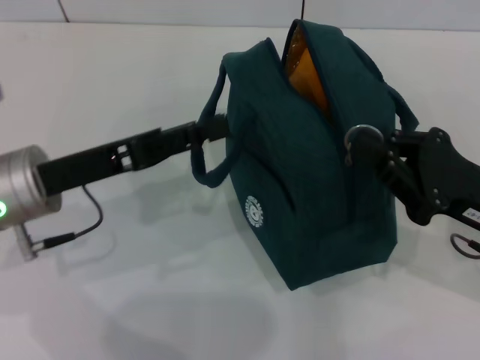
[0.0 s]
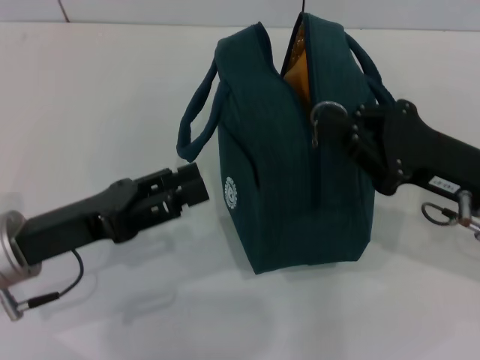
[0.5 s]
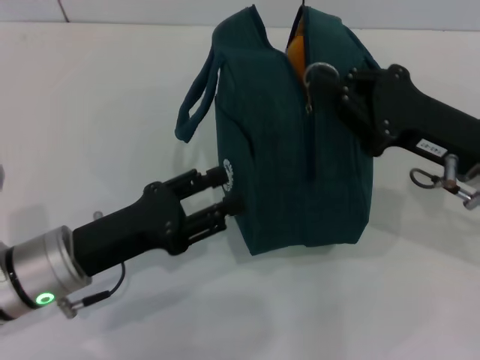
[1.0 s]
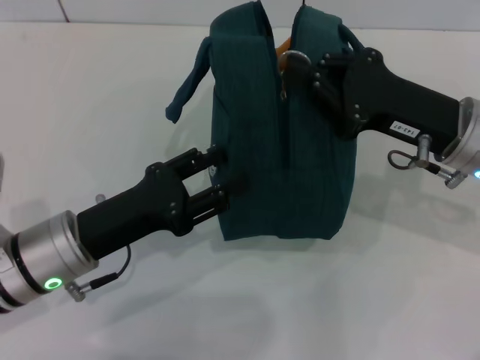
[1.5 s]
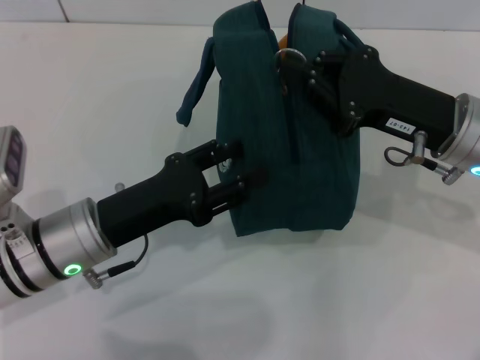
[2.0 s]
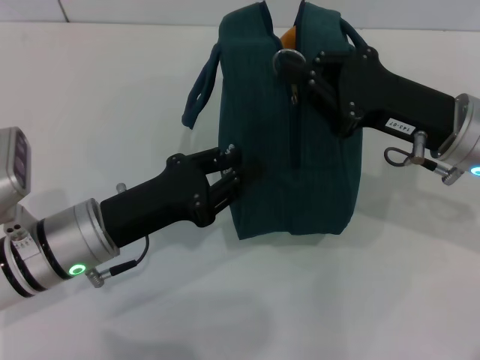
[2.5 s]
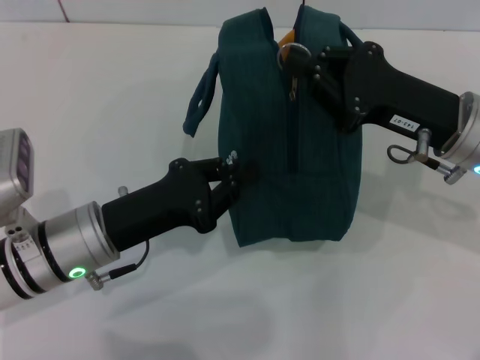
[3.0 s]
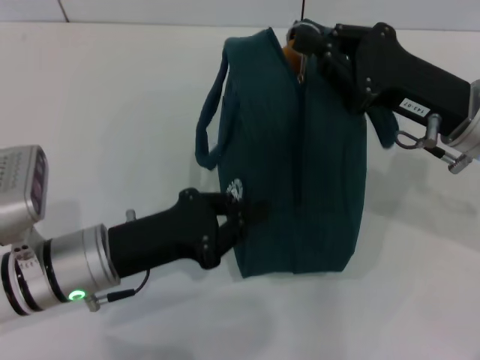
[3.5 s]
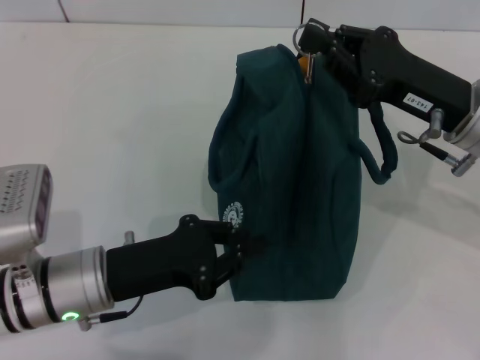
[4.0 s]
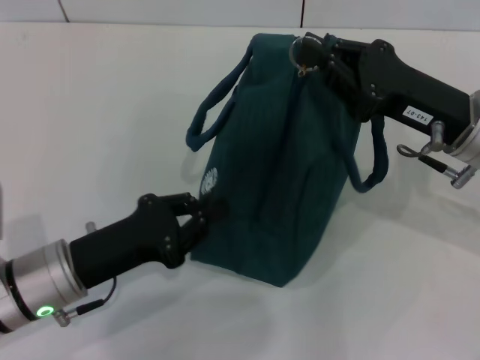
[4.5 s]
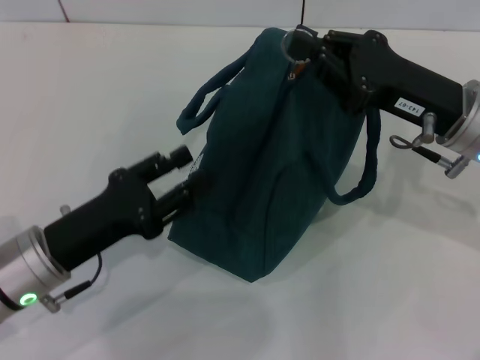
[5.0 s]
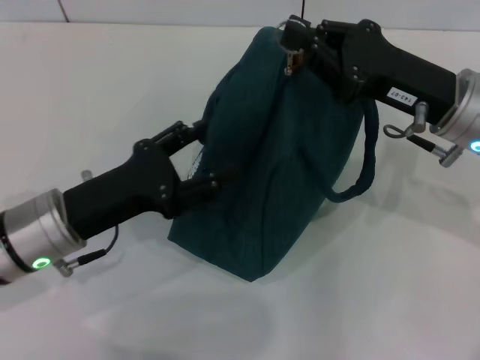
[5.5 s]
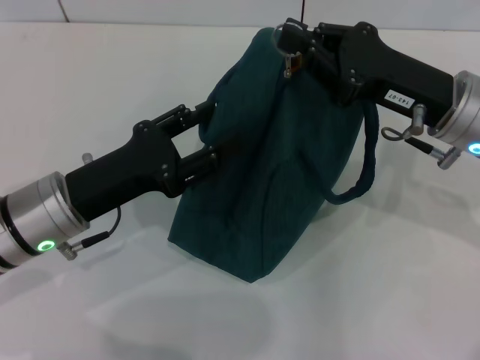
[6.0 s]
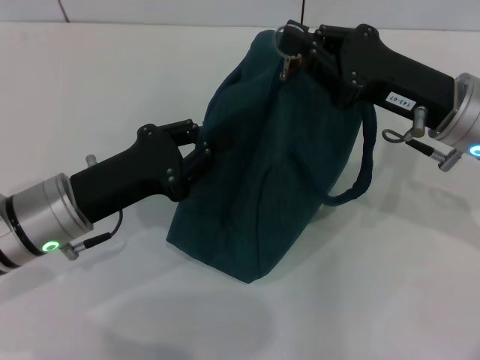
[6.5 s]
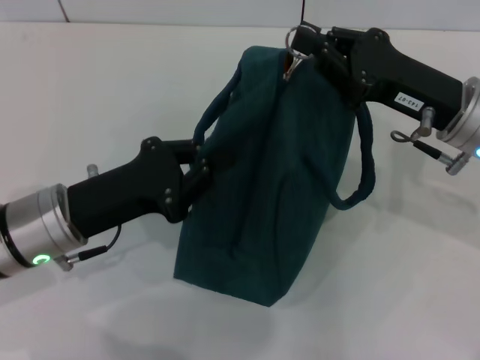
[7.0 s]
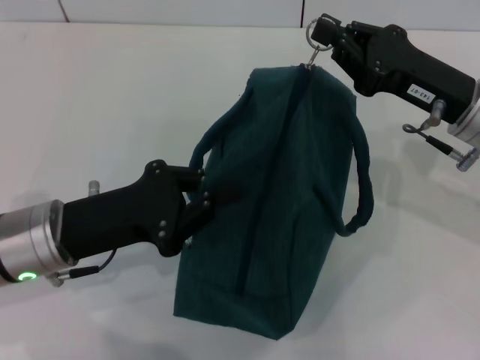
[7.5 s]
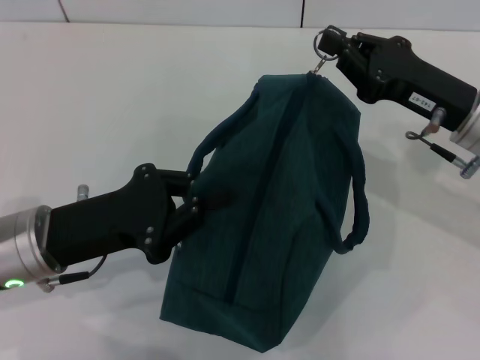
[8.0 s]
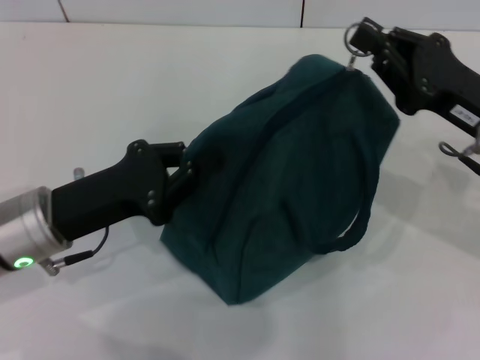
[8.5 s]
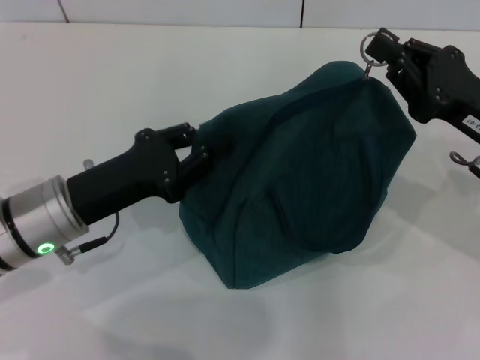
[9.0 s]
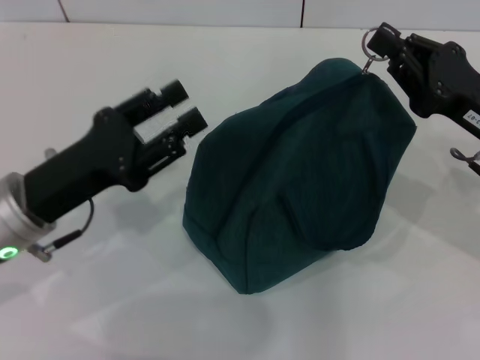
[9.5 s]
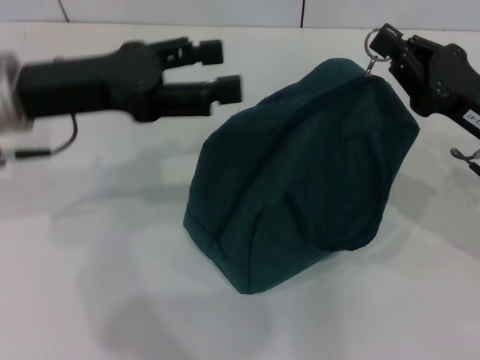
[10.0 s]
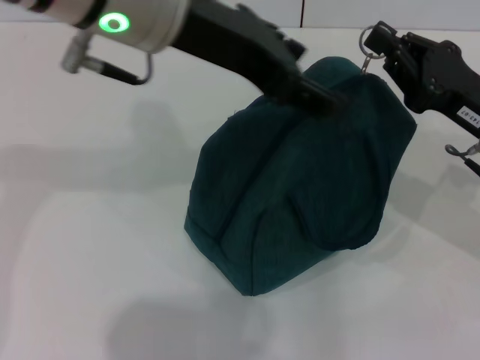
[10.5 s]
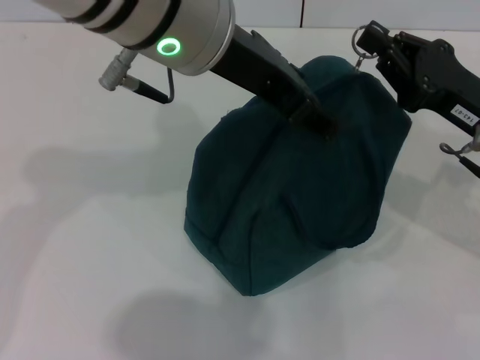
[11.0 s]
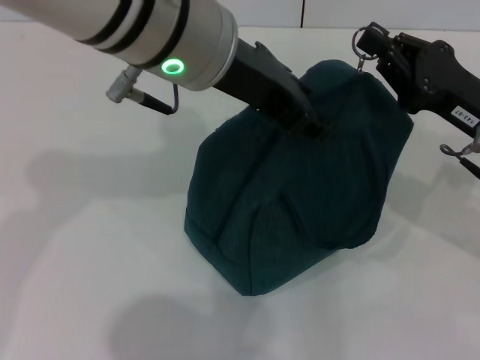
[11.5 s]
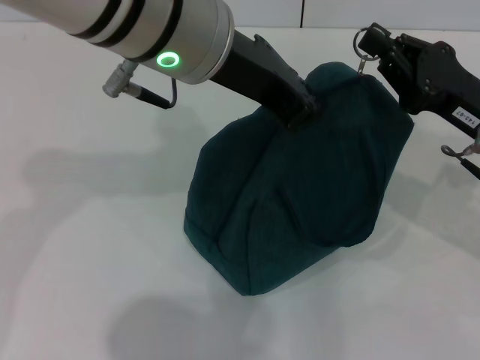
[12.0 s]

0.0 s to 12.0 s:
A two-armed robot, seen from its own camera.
0.0 to 2.0 s: The left gripper heads downward, covering some 5 cm. Meanwhile the right gripper shifts some 10 cm forward and to the left.
2.0 to 4.0 s: The left gripper closes.
4.0 to 6.0 s: The left gripper shifts by some 5 cm, and opens.
6.0 to 8.0 s: The left gripper closes up.
8.0 to 10.0 s: The left gripper heads upward and forward, covering approximately 15 cm, and opens up.
10.0 to 12.0 s: The left gripper goes roughly 15 cm to the right and upward, and closes up.

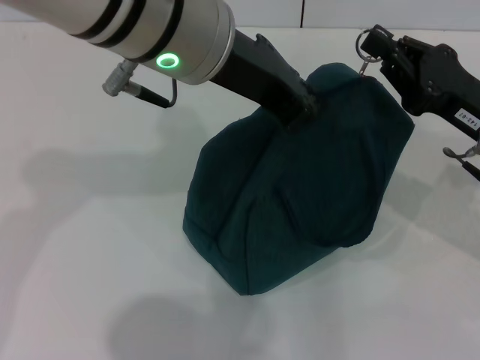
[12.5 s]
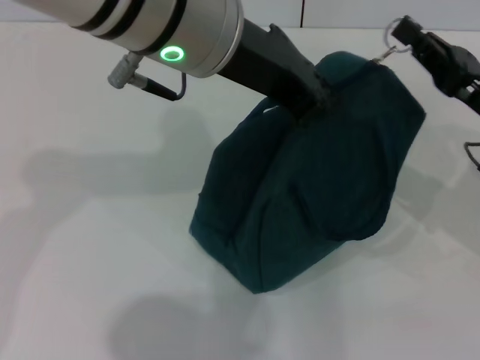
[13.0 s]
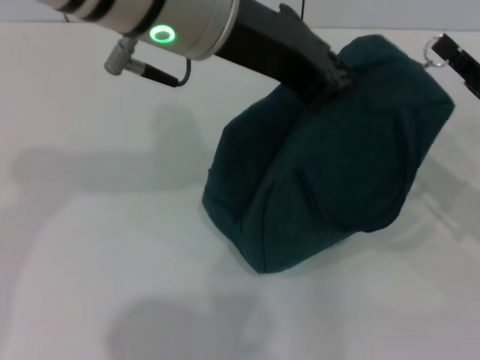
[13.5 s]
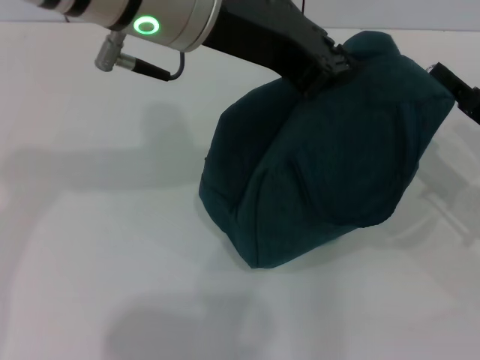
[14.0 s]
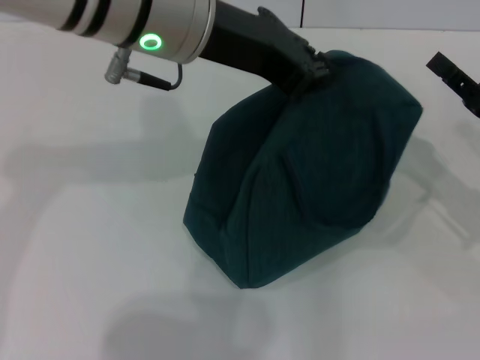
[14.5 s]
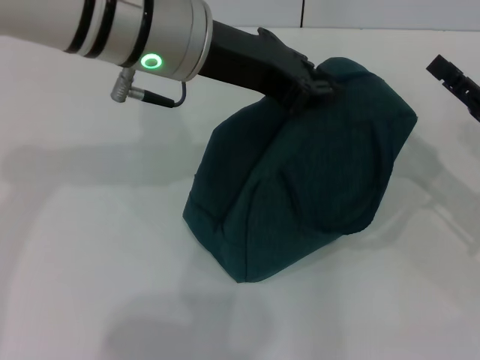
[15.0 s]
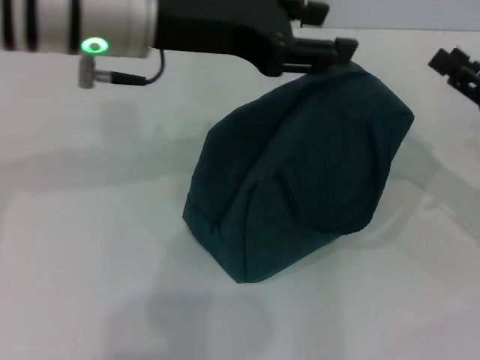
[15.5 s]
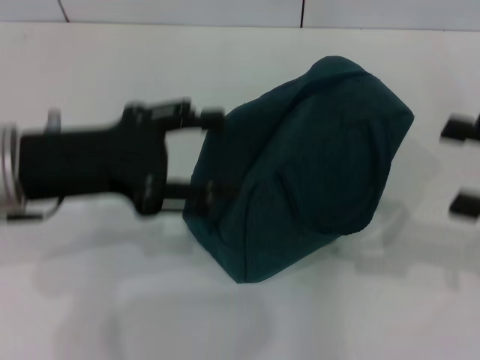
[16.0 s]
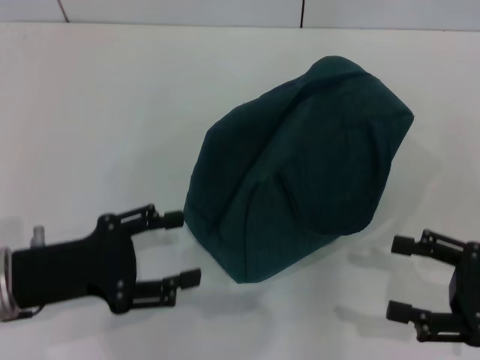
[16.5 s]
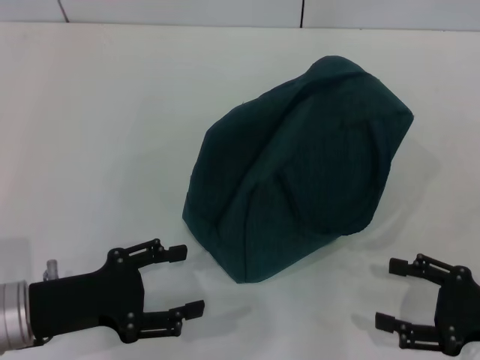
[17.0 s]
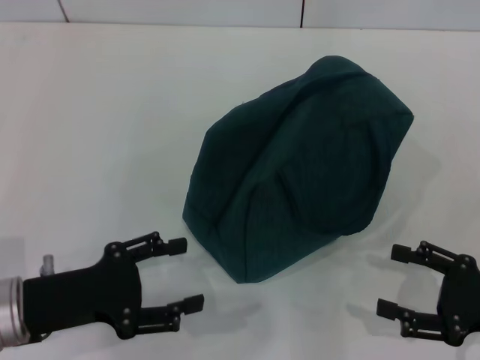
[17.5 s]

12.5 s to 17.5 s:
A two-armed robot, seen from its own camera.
Step, 12.5 to 14.5 s: Zip up the lunch bag with your right hand.
12.5 to 15.0 s: The right gripper heads to the right, covering roughly 5 cm, and opens its fingers.
15.0 to 17.5 s: The right gripper moves backward, approximately 10 cm, and goes upward and returns, approximately 10 cm each way, while the left gripper travels downward, to the left and backward by some 30 cm, and opens.

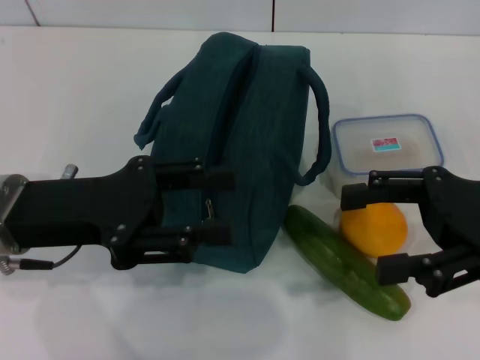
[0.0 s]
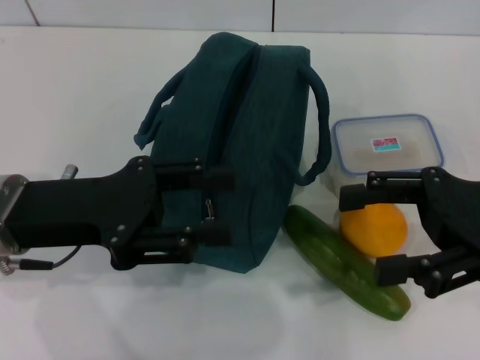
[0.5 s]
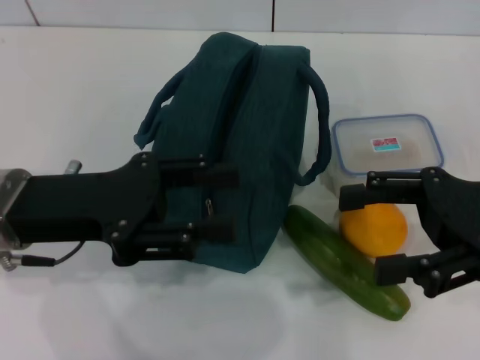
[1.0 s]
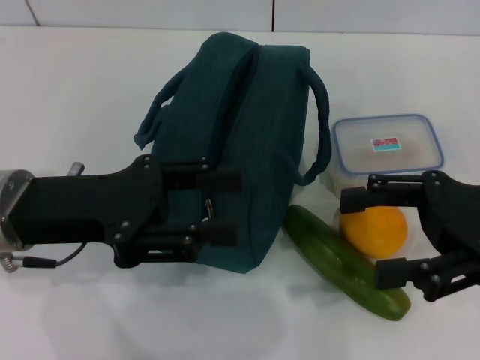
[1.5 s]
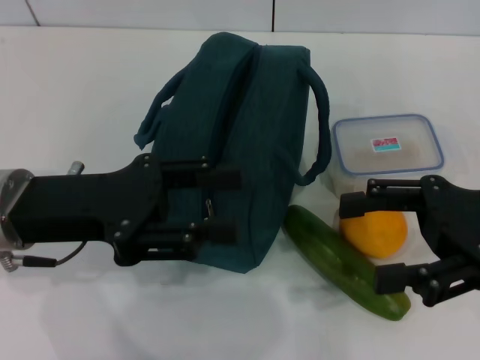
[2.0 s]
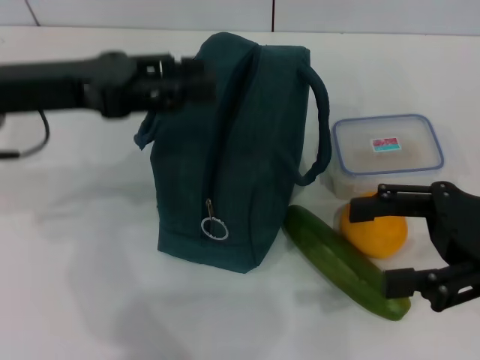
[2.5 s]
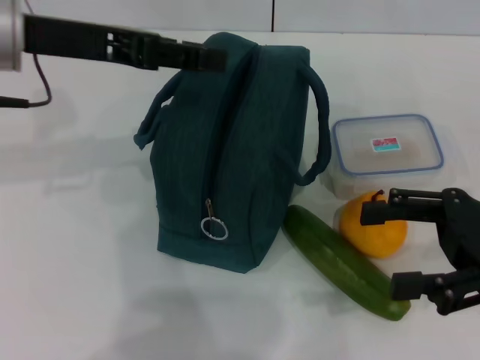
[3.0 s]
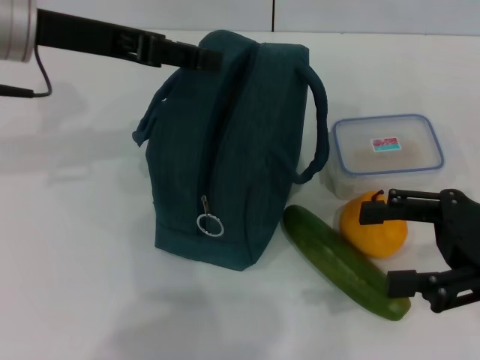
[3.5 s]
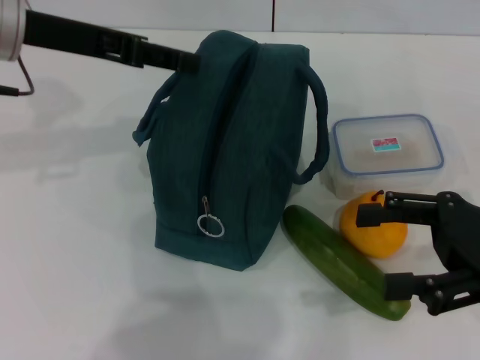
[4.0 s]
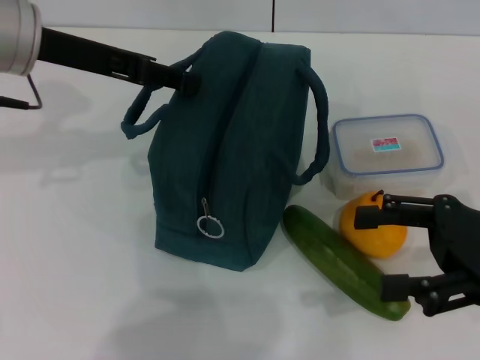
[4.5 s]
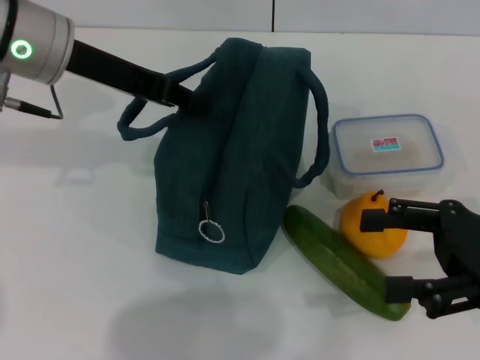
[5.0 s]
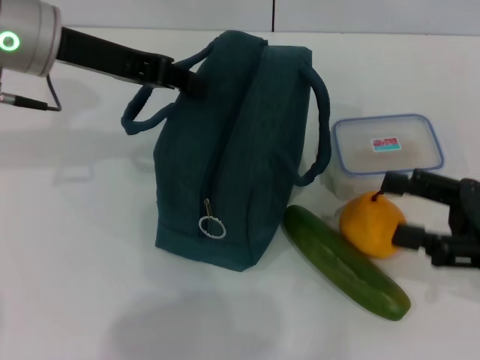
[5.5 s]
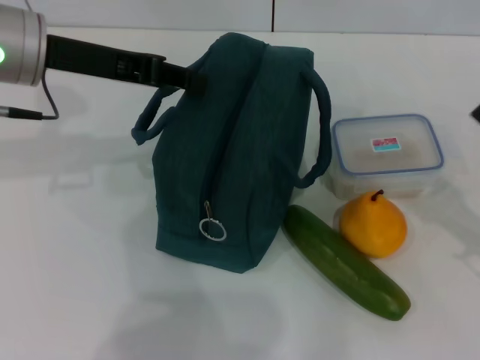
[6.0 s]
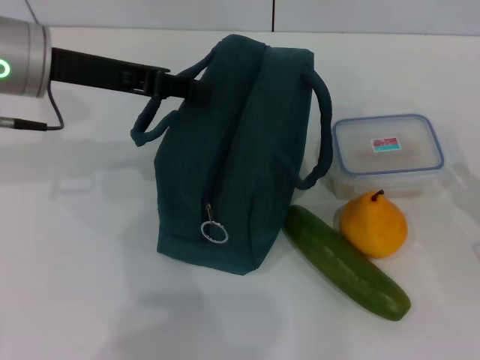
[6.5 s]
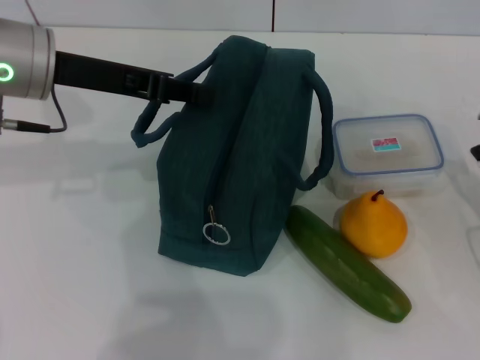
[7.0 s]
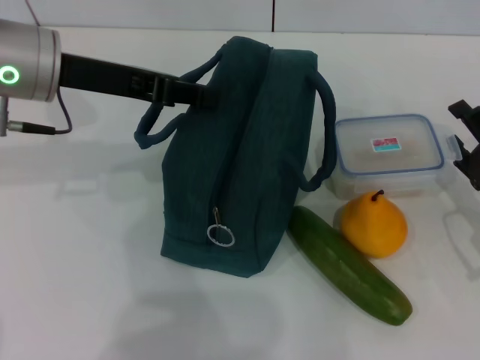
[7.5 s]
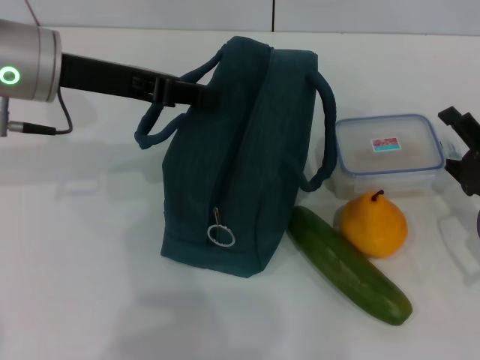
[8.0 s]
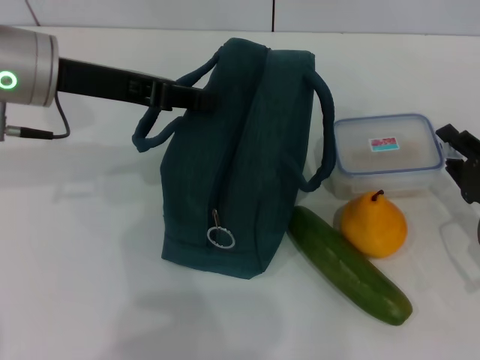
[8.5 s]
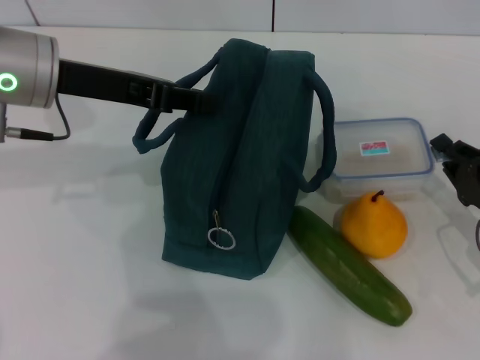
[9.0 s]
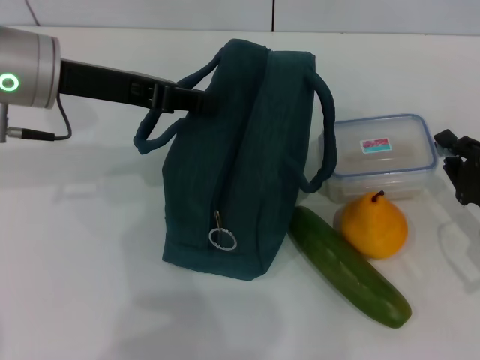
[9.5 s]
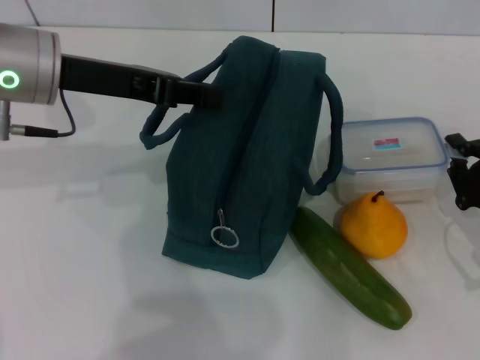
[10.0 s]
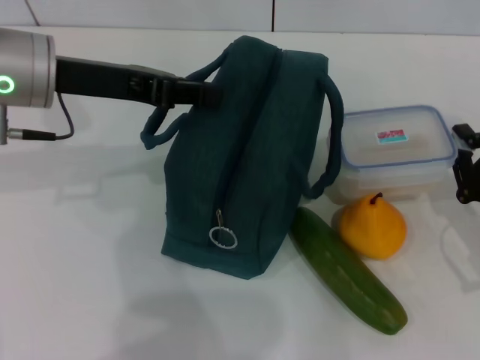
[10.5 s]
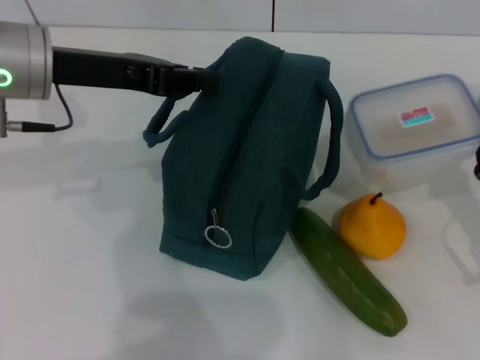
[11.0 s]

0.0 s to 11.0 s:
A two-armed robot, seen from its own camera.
Step, 0.0 to 6.0 s: Hold the lunch bag with your left hand.
Step, 6.5 to 9.0 s: Pick up the lunch box with your right hand.
0.0 to 2.0 s: Neither gripper changes place.
2.0 to 3.5 s: The left gripper is displaced forward and upward by some 15 cm.
3.5 to 5.5 s: The left gripper closes up.
5.5 to 7.5 s: The right gripper goes some 10 cm downward.
7.5 to 9.0 s: The right gripper closes up.
